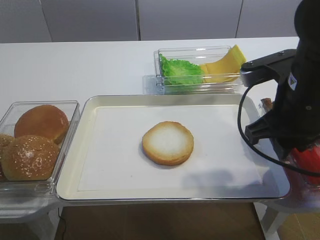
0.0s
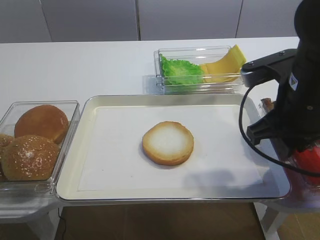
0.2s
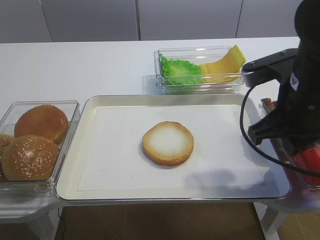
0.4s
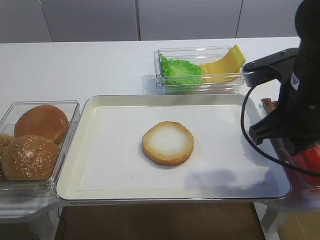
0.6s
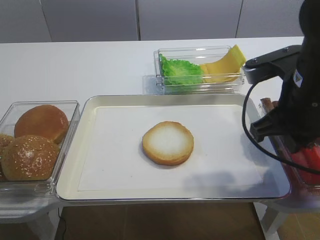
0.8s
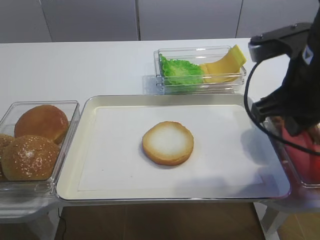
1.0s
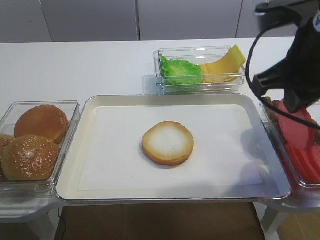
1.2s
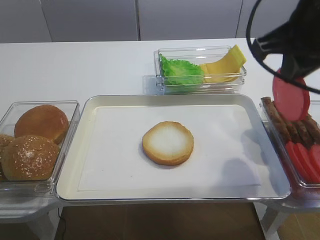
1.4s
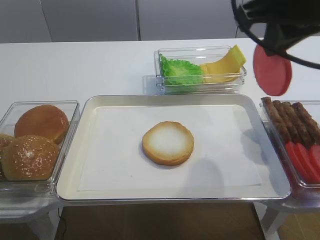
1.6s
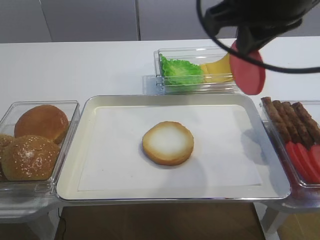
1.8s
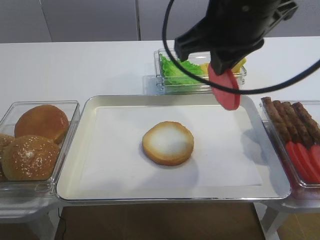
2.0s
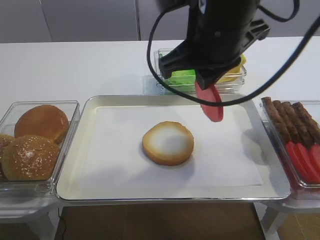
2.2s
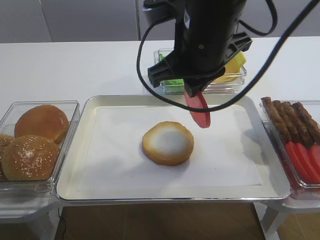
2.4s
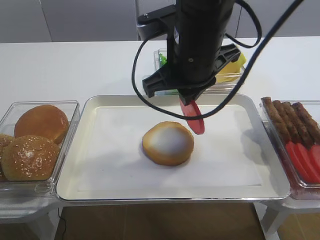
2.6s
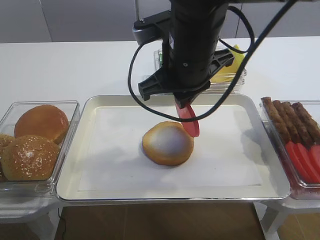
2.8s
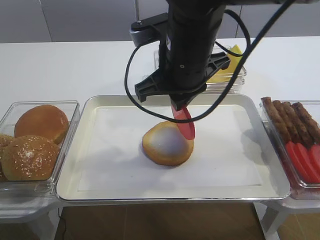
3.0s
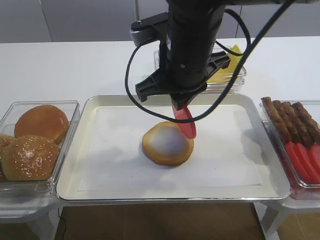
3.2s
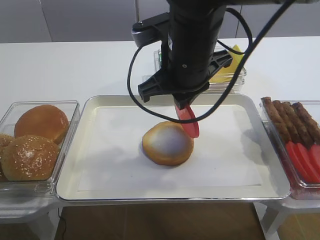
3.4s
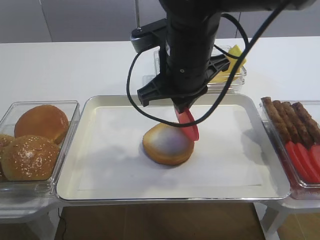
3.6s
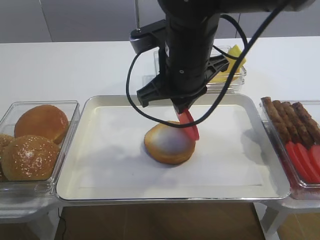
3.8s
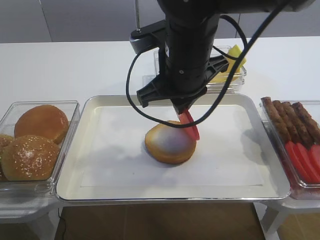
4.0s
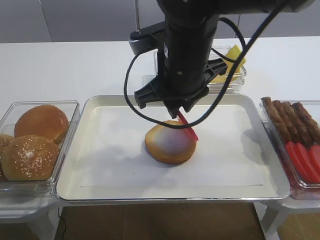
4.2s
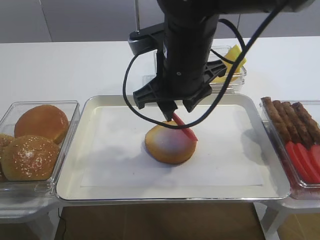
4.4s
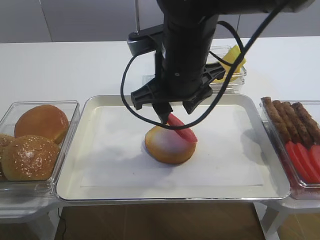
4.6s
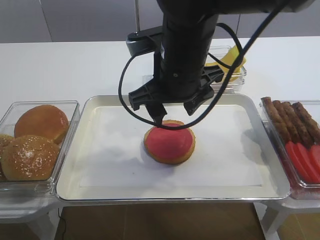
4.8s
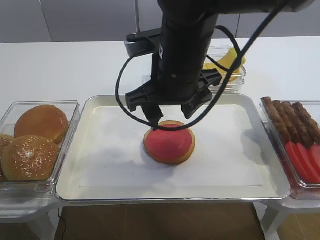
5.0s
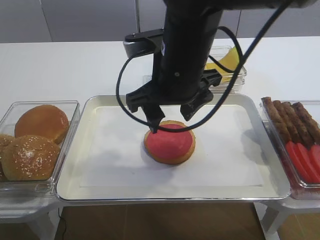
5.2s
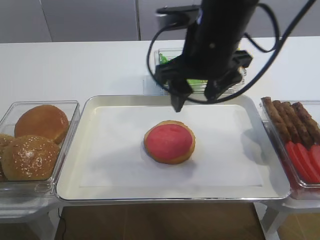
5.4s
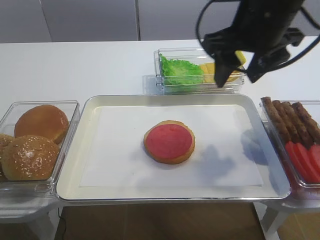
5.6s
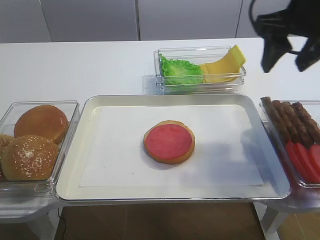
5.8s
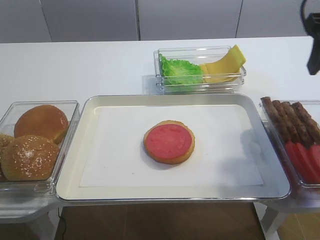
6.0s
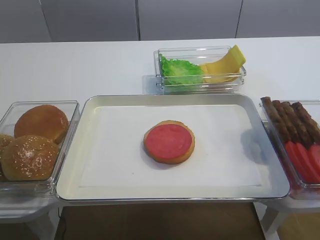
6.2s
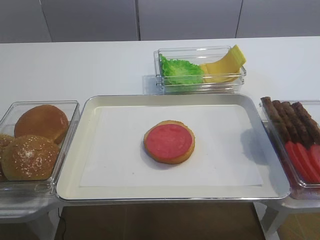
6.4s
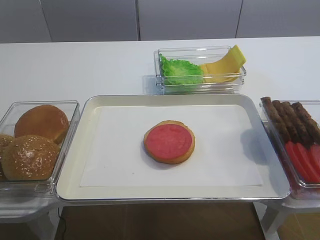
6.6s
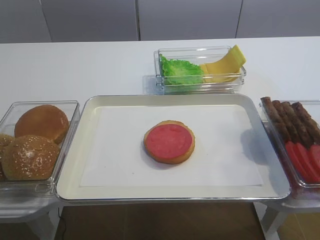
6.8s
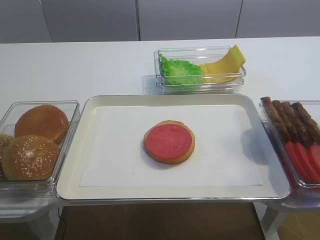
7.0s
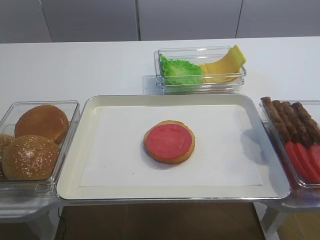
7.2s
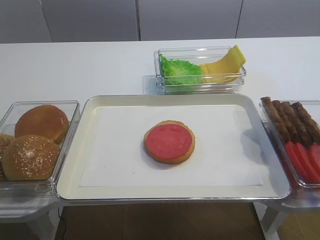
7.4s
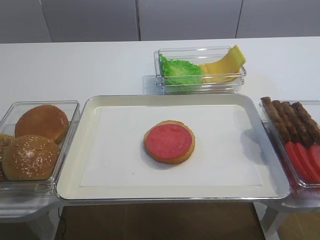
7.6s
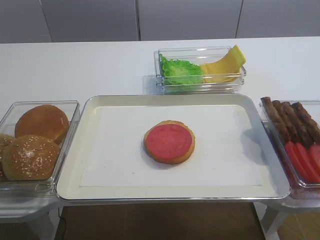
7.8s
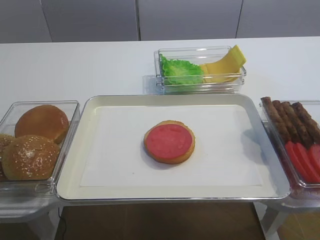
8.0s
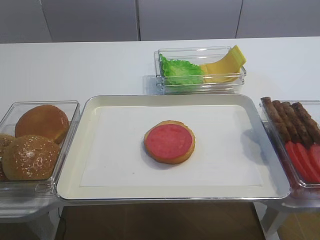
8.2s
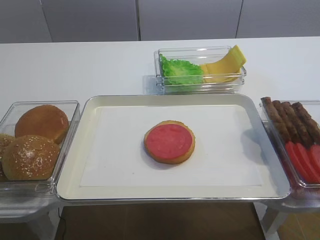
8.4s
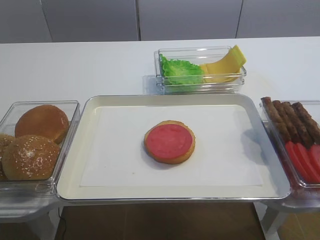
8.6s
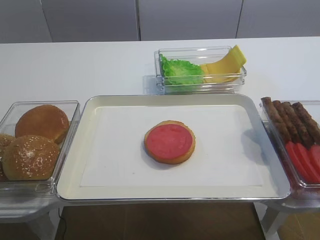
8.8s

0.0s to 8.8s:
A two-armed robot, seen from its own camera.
Step, 1.2s to 5.0s: Place the tomato slice on the bread slice with the right gripper.
0.0s to 1.4s: The right gripper is displaced upward by approximately 10 cm, and closes.
1.4s to 3.0s: The right gripper moves to the left and downward, about 15 cm.
3.0s to 4.4s: The right gripper opens.
4.4s to 5.8s: The right gripper shifts some 20 cm to the right and upward.
5.8s to 7.4s: The right gripper heads backward, covering some 30 cm.

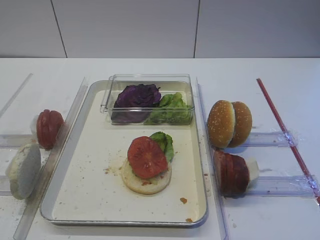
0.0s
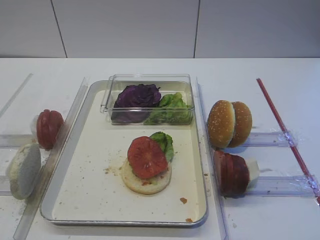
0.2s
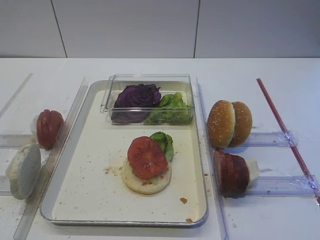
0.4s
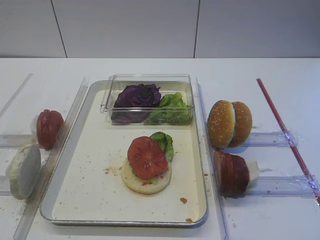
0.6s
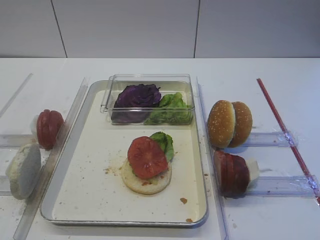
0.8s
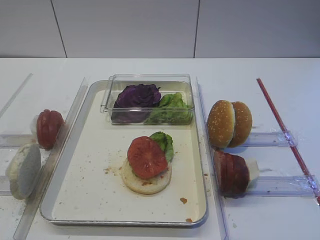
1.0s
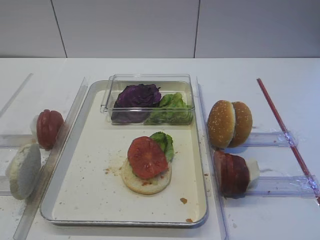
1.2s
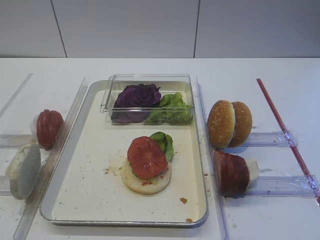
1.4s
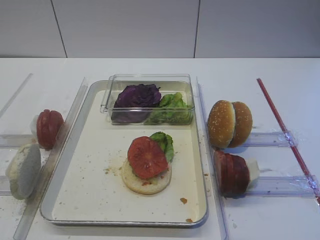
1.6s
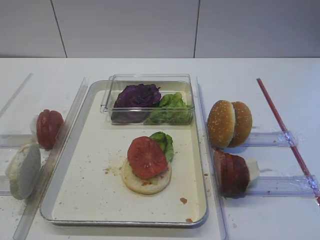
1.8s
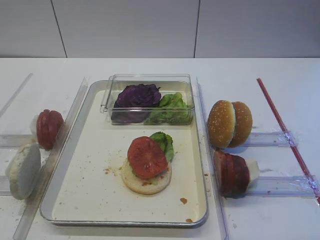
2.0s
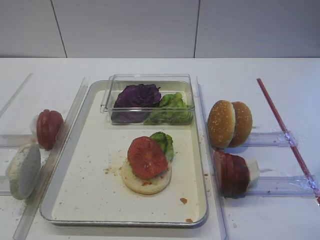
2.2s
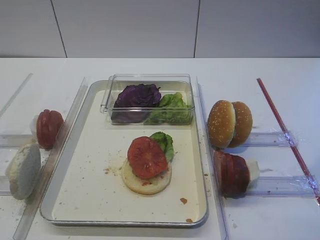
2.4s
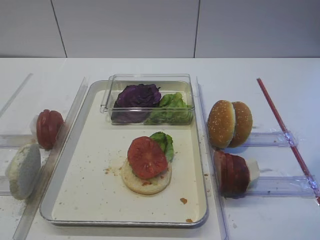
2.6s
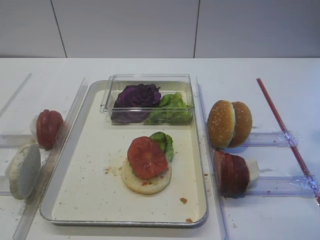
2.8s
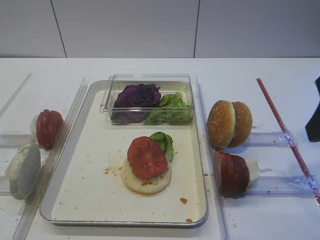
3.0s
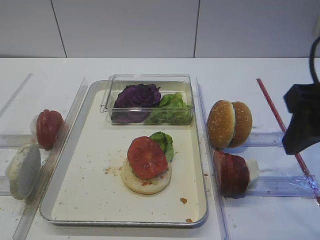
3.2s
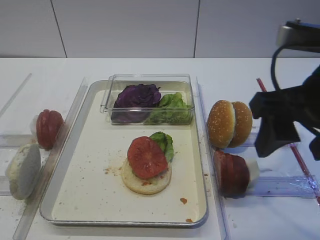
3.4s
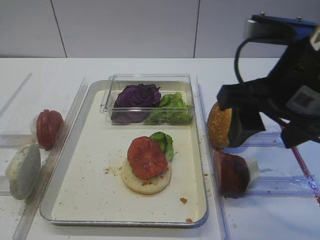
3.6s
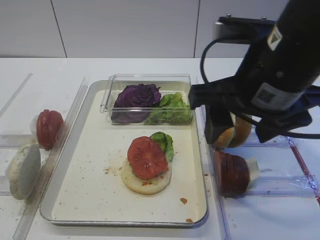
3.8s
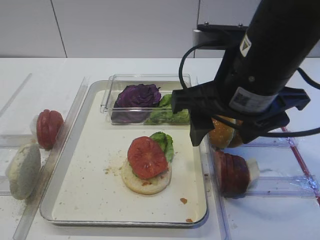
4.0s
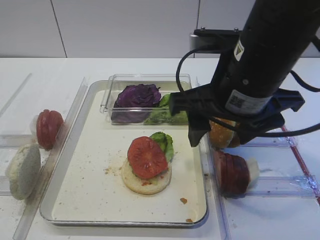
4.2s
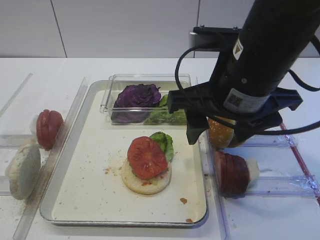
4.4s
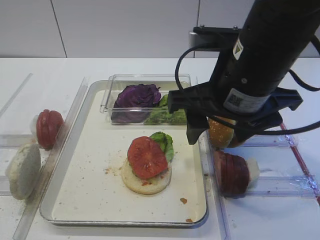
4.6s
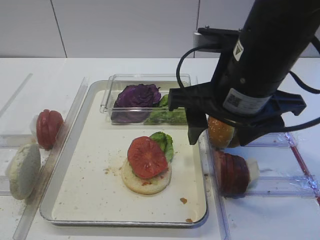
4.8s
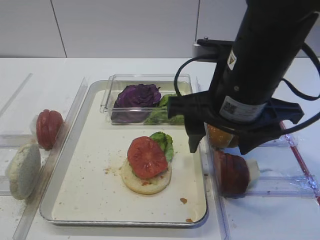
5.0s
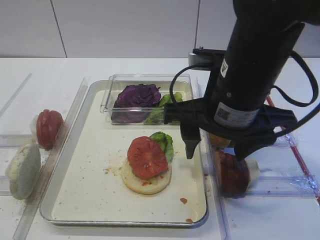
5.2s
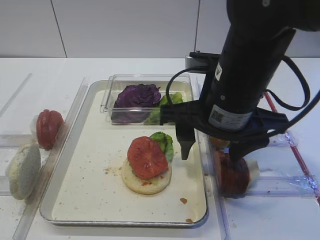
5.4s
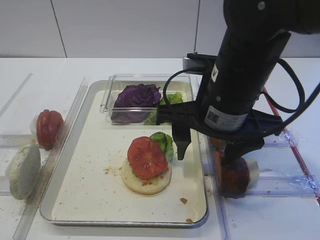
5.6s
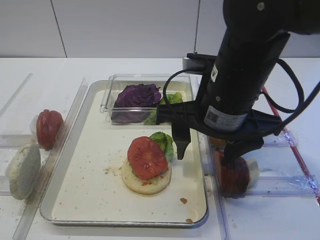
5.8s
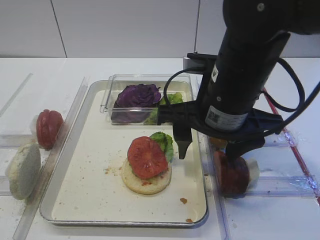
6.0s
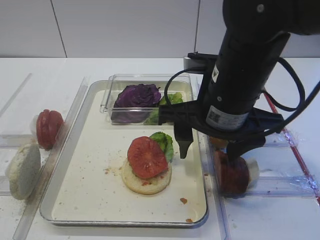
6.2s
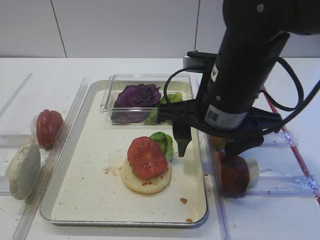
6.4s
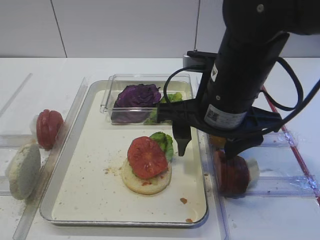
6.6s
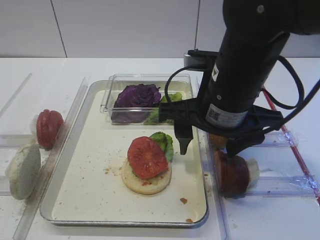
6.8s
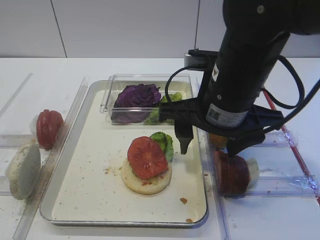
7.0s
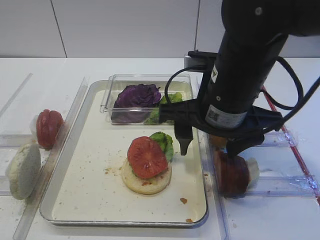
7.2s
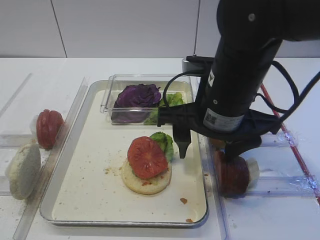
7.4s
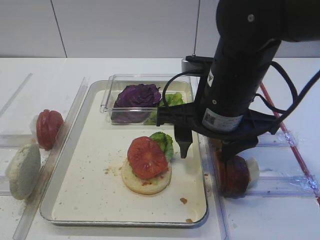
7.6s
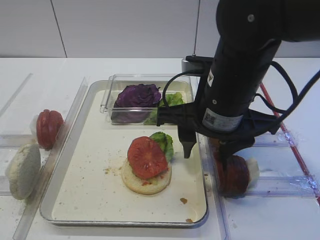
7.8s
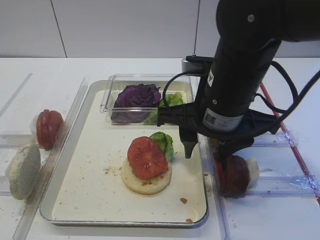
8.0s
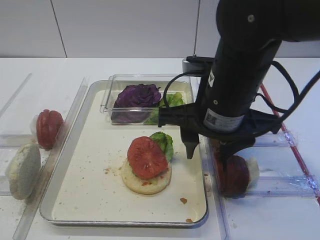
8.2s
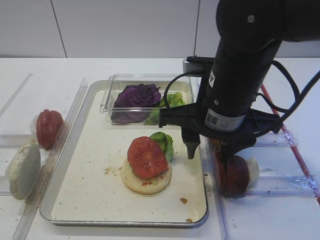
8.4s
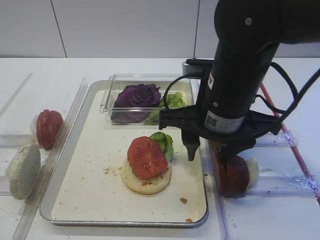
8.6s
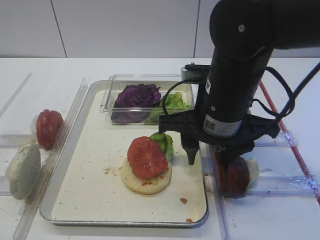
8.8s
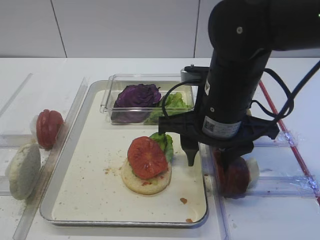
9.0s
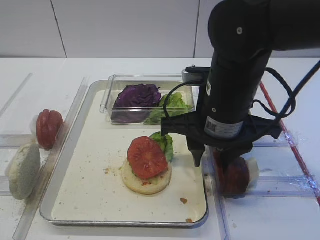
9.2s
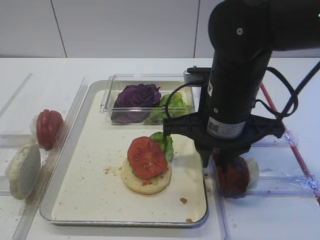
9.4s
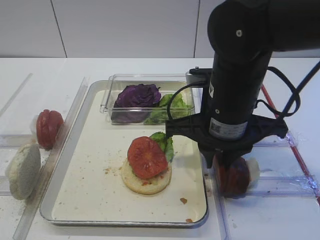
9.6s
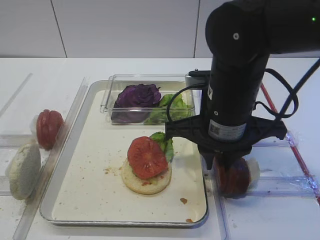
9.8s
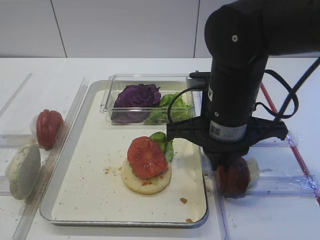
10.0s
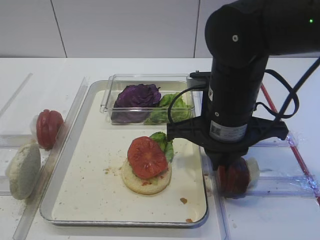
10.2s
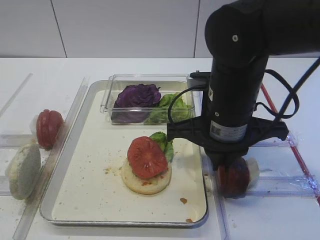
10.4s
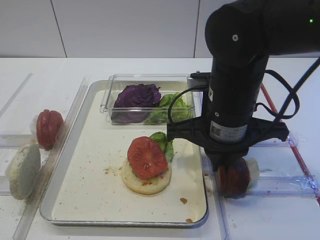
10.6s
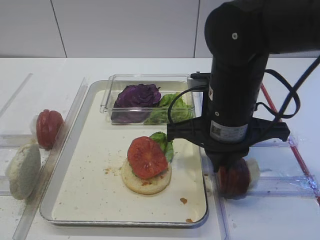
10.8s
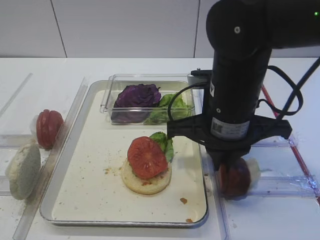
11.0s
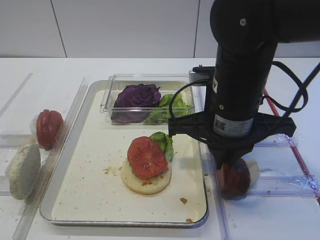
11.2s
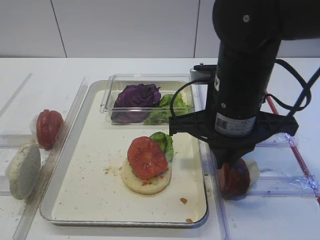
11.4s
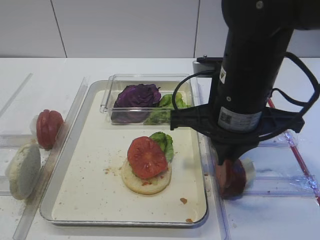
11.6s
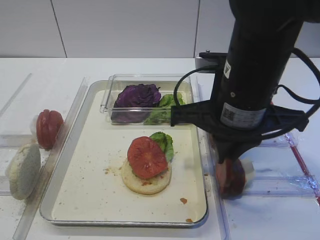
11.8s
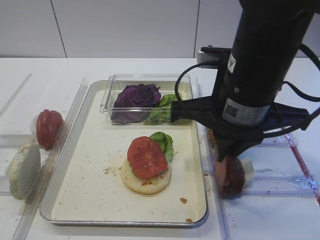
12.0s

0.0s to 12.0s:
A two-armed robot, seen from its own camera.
1.6s to 3.0s: The right gripper goes roughly 10 cm forward.
3.0s to 4.4s: The right gripper is displaced to the left and forward by approximately 15 cm.
4.4s to 6.0s: The grippers move only a little.
6.0s to 7.6s: Both grippers stay put.
7.6s to 9.0s: Neither gripper changes place.
9.0s to 10.4s: The right gripper closes its fingers.
10.4s to 12.0s: The right gripper changes place by some 5 cm.

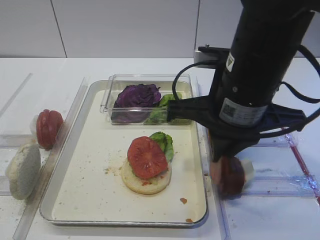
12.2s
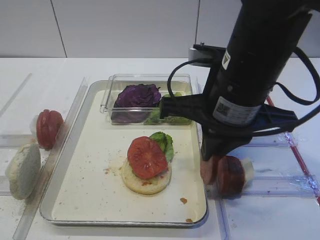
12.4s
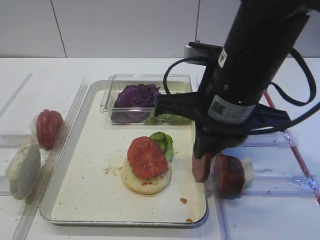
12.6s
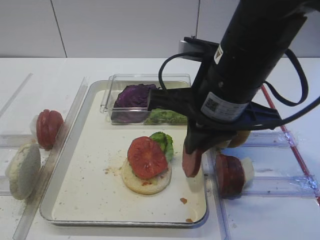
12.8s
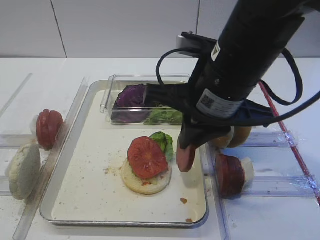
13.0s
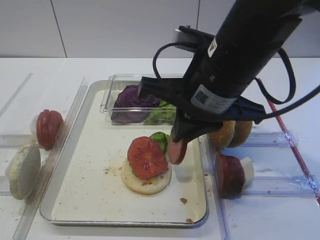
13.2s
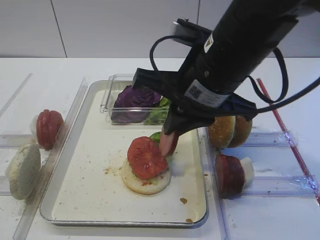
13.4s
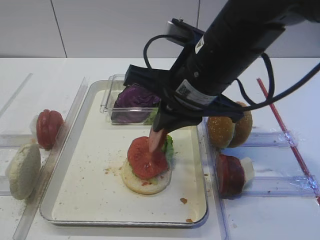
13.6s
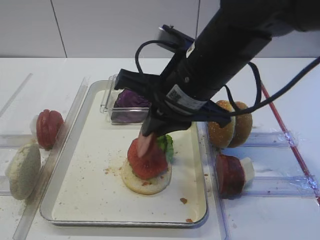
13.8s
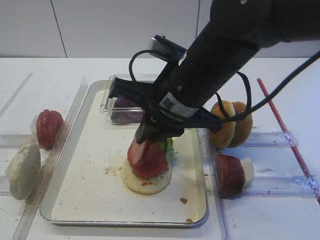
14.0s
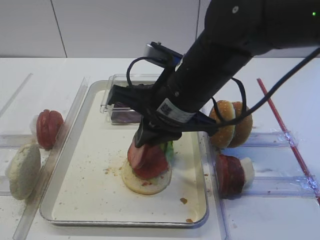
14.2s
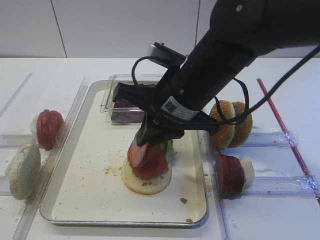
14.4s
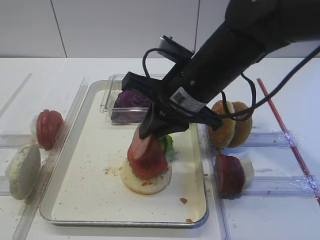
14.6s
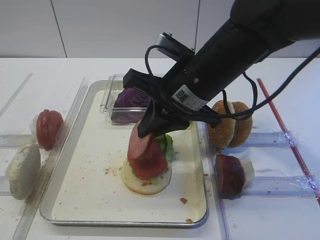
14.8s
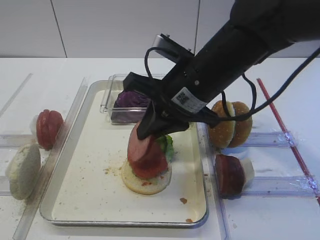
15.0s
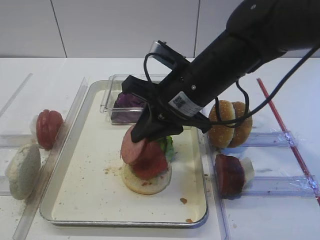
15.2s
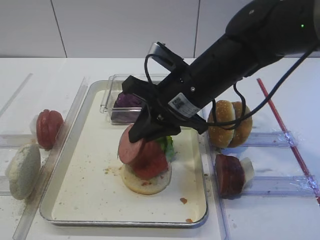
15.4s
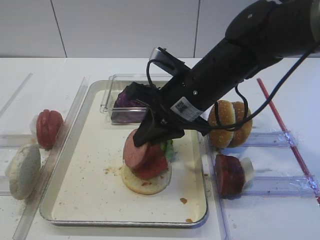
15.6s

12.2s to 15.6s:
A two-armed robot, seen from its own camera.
12.2s to 13.8s: The right gripper changes place by roughly 5 cm.
13.8s to 15.6s: The right gripper shifts by roughly 5 cm.
